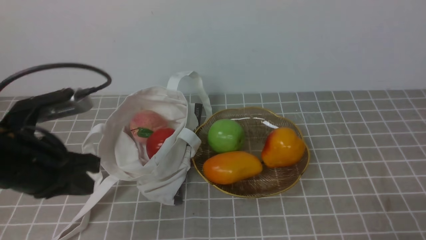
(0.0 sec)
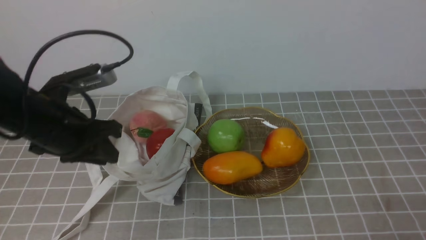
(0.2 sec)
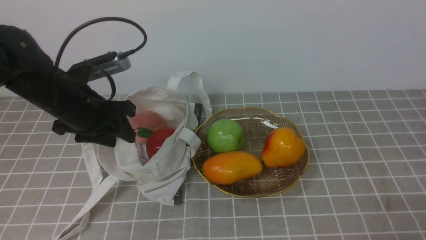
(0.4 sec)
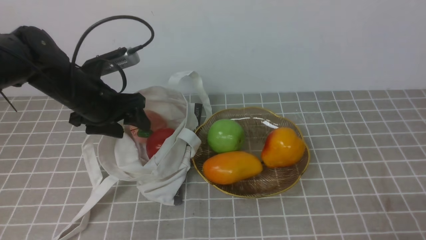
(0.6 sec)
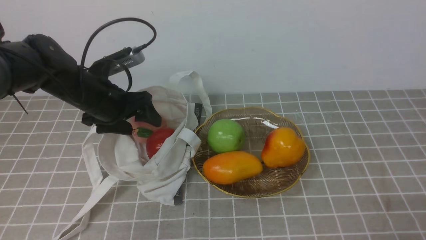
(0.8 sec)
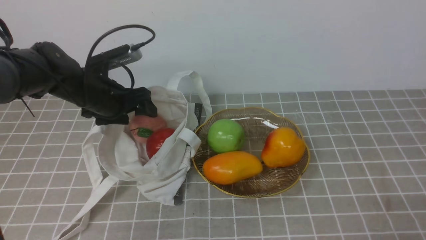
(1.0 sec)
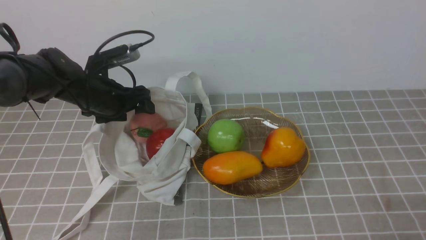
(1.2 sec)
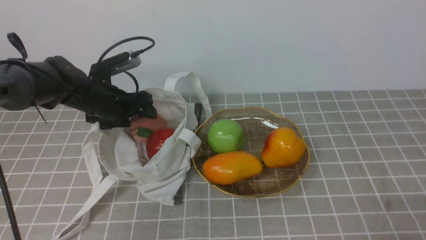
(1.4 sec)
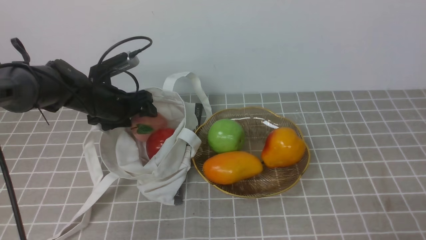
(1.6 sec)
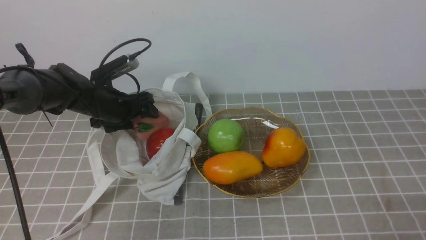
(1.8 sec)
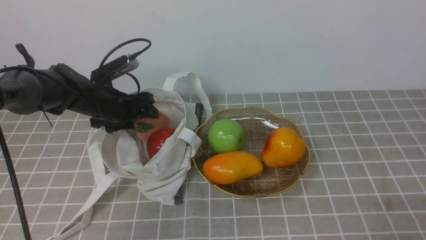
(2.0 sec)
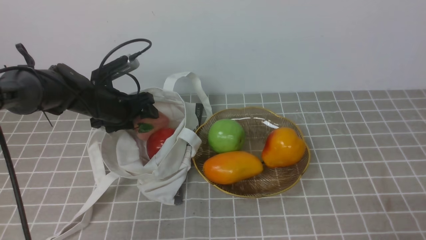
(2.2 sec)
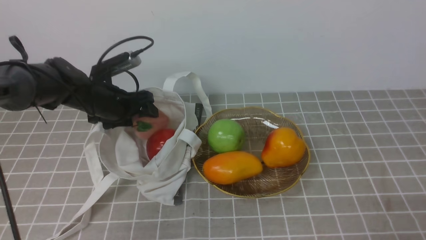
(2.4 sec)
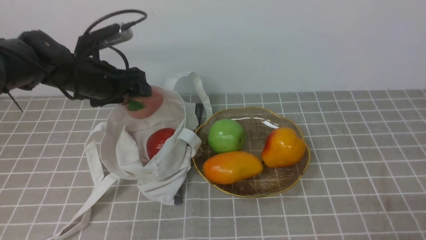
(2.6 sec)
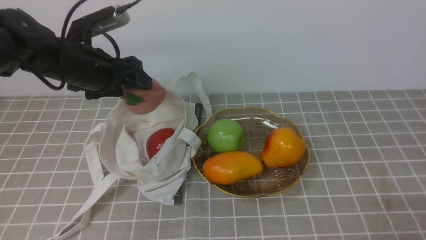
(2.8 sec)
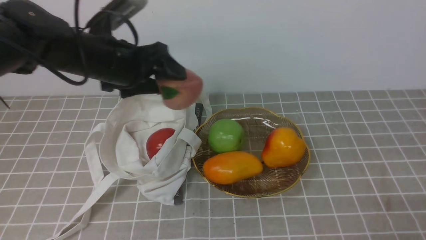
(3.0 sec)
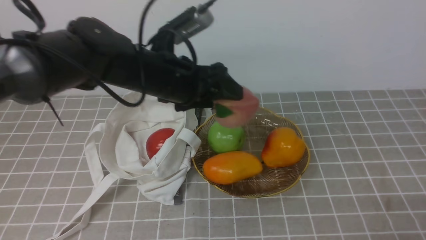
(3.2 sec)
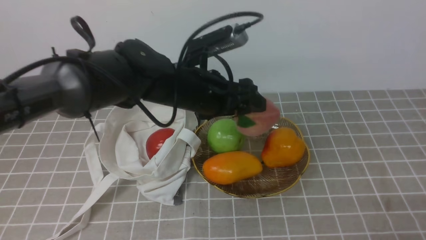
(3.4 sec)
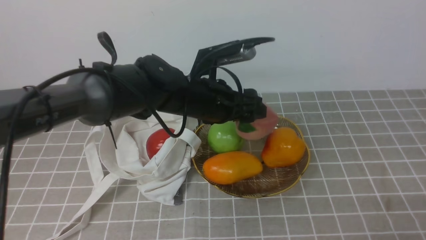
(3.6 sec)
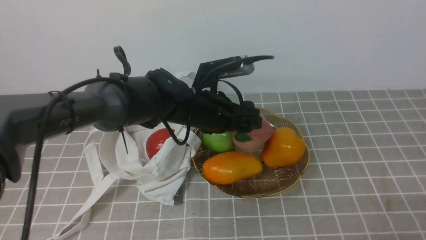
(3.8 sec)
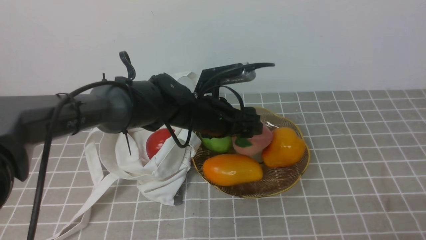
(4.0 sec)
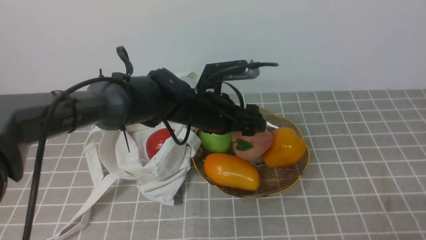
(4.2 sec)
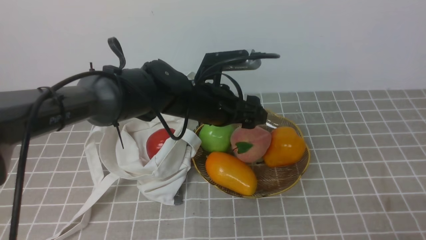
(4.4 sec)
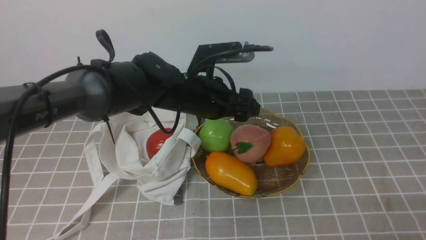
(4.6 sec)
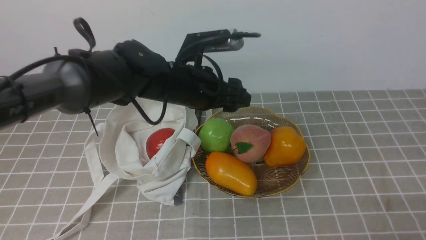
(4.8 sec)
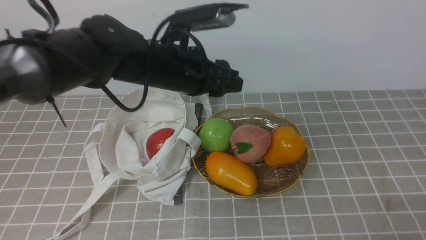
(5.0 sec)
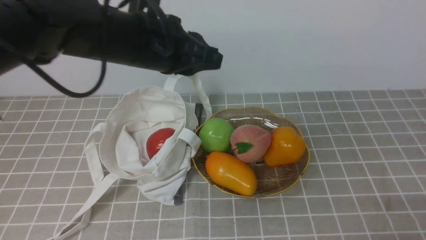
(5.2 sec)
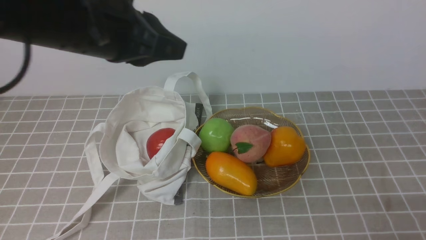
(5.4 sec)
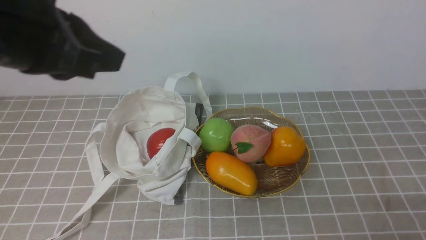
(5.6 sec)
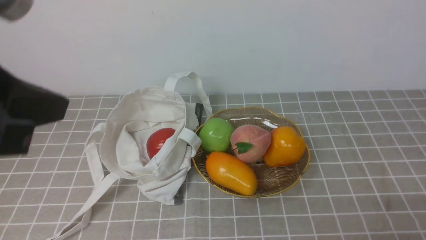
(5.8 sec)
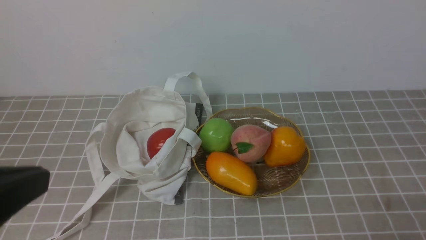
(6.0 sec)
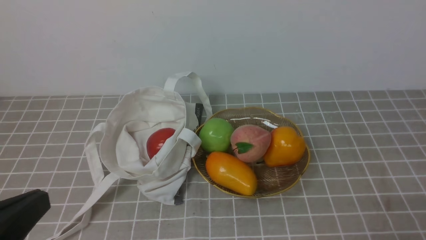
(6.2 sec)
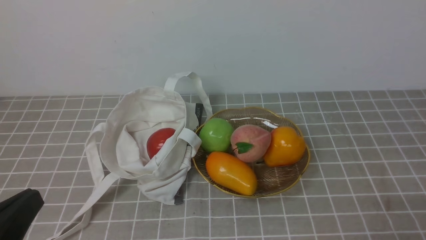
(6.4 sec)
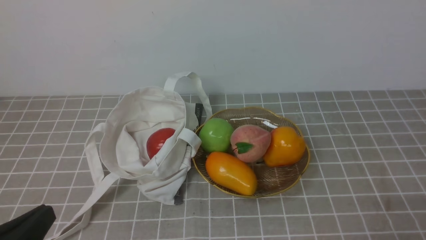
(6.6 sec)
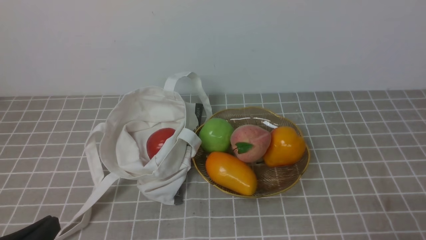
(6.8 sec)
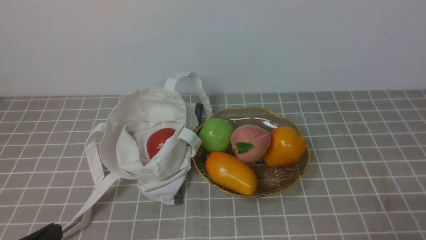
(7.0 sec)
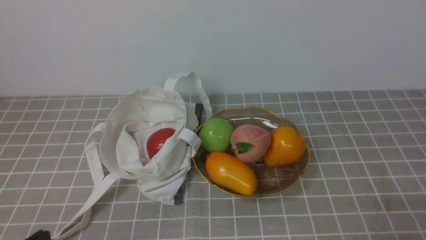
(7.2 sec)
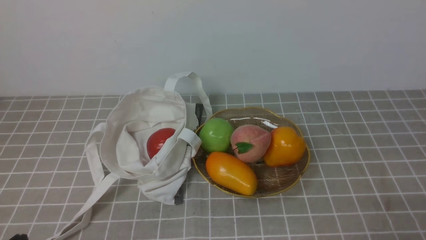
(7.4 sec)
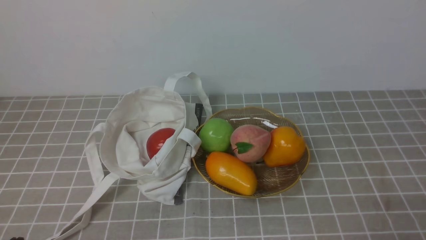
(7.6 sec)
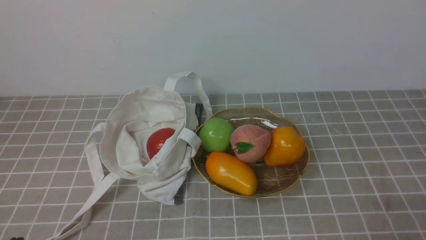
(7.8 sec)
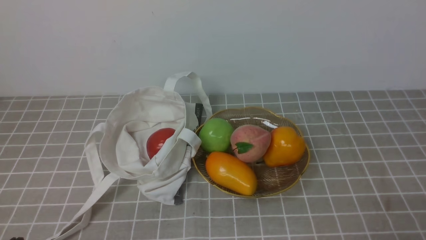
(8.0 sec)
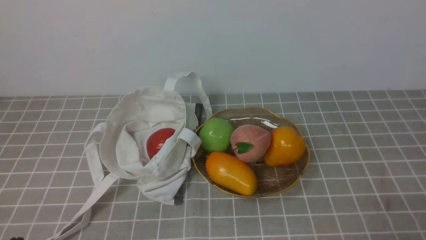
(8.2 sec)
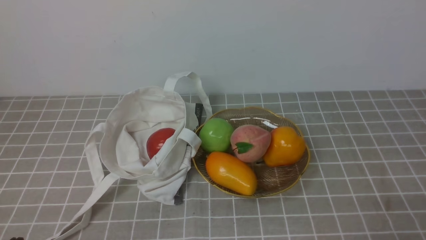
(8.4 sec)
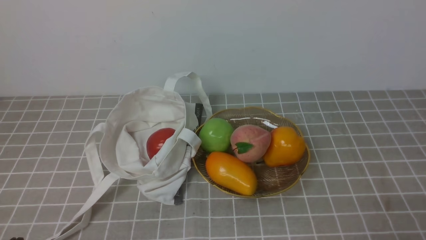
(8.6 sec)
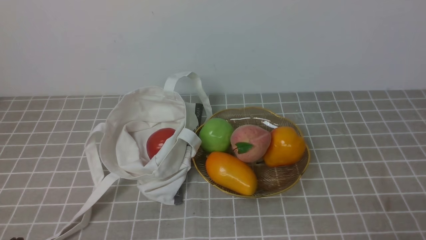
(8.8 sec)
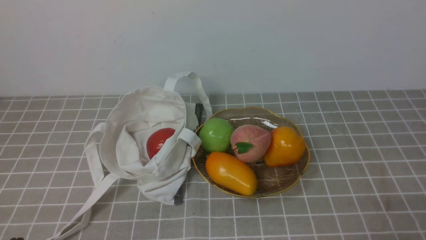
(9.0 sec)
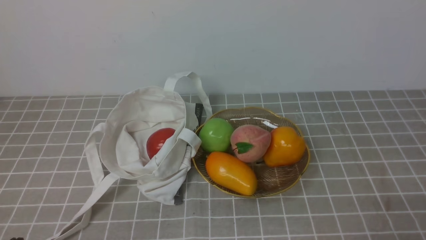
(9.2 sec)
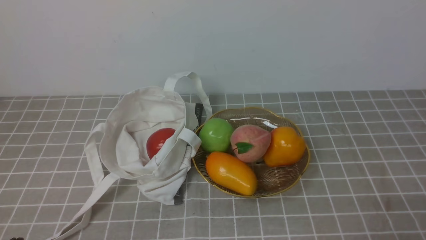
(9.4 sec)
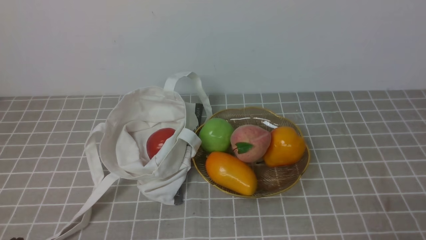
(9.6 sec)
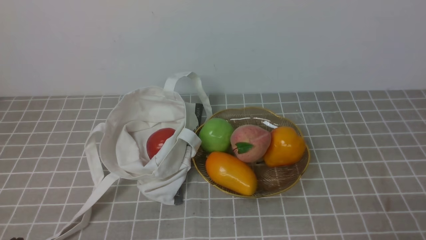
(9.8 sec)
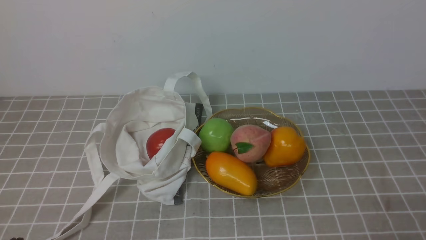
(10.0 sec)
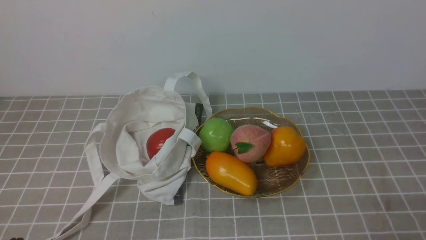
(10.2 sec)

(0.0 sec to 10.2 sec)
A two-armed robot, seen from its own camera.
Step, 0.0 sec - 2.2 sec: use the left arm to grab a peach from the bag.
Step, 2.6 sec - 4.2 sec: use the left arm to put the peach into the empty plate on the right.
0.0 sec - 1.4 sec: The left gripper is displaced forward and downward by about 25 cm, and opens its fingers.
1.4 sec - 3.0 sec: The left gripper travels upward, to the right and backward by about 15 cm.
3.0 sec - 4.4 sec: The left gripper shifts roughly 15 cm to the right and downward.
4.4 sec - 5.8 sec: The left gripper goes approximately 35 cm backward, upward and to the left, and closes its fingers.
5.8 sec - 7.2 sec: The left gripper heads downward, covering approximately 25 cm.
8.8 sec - 10.2 sec: The two grippers keep their place.
